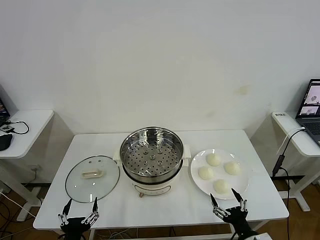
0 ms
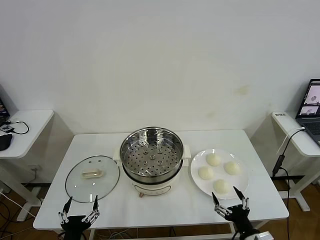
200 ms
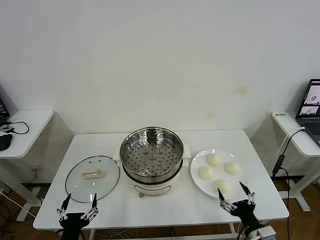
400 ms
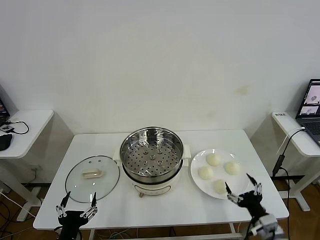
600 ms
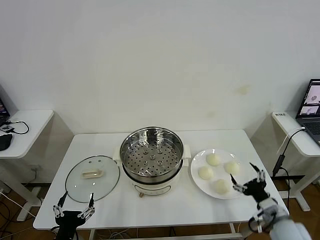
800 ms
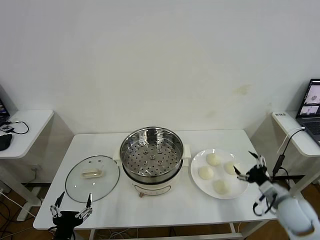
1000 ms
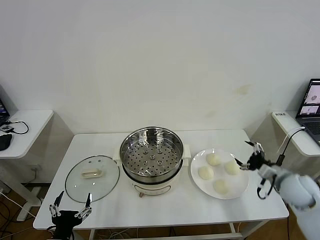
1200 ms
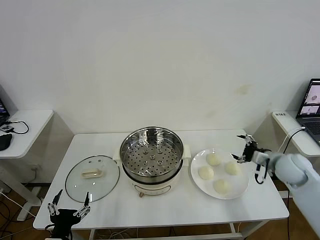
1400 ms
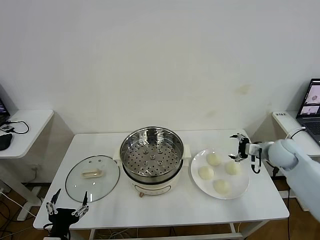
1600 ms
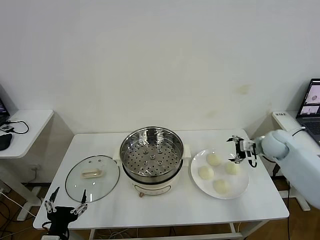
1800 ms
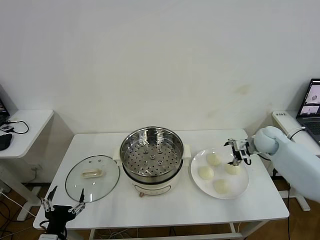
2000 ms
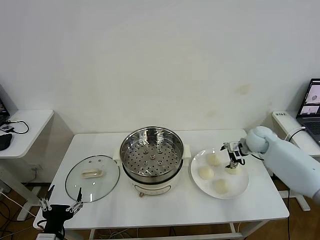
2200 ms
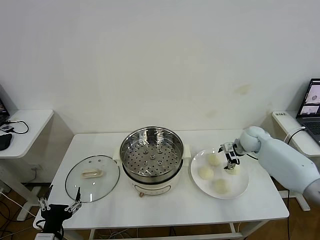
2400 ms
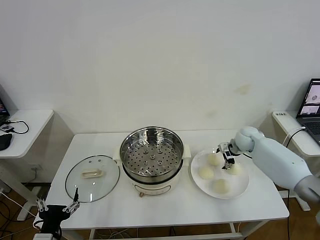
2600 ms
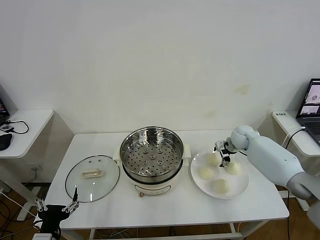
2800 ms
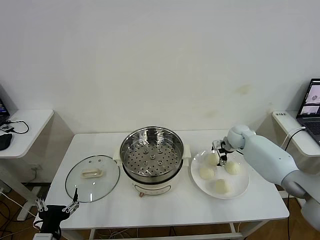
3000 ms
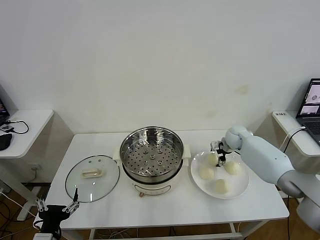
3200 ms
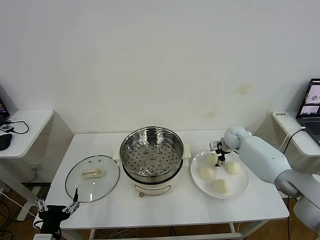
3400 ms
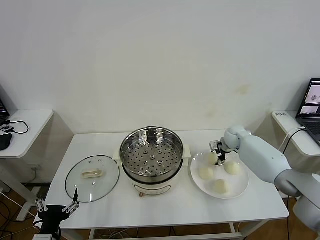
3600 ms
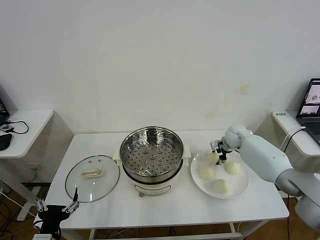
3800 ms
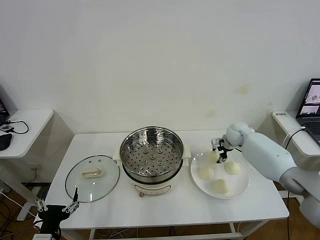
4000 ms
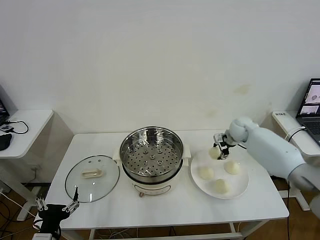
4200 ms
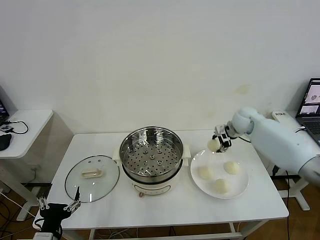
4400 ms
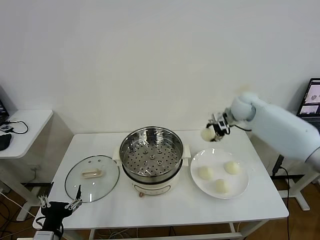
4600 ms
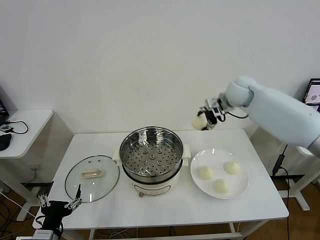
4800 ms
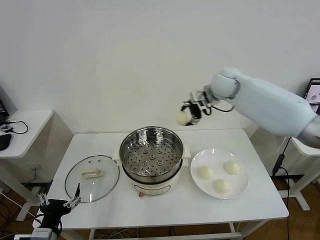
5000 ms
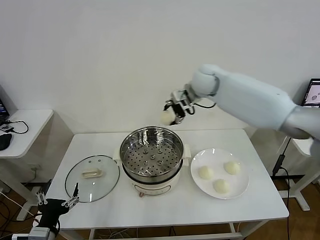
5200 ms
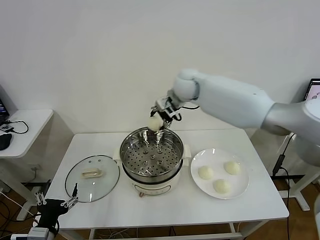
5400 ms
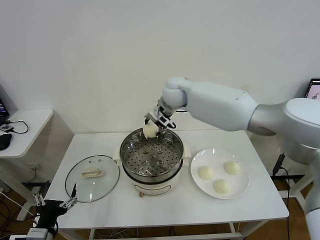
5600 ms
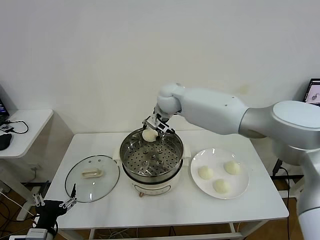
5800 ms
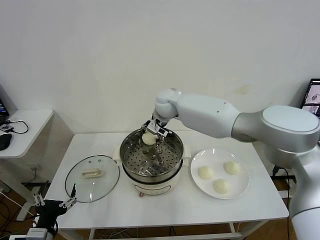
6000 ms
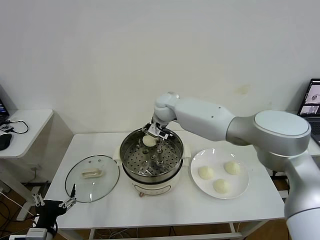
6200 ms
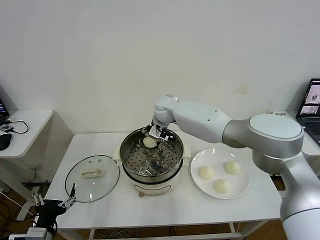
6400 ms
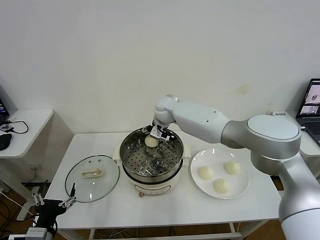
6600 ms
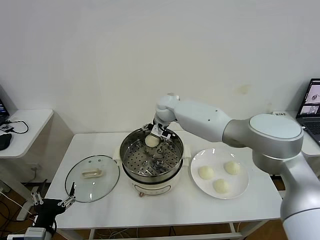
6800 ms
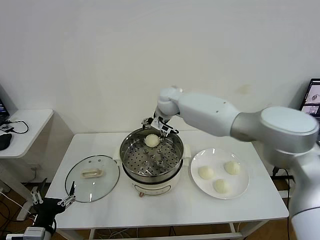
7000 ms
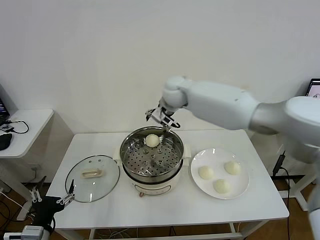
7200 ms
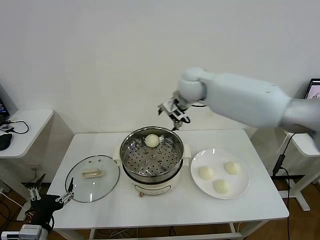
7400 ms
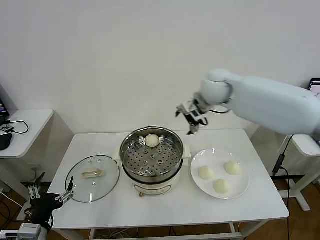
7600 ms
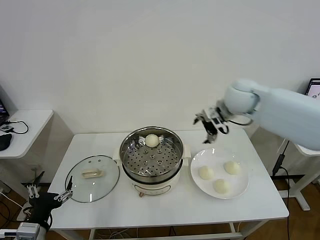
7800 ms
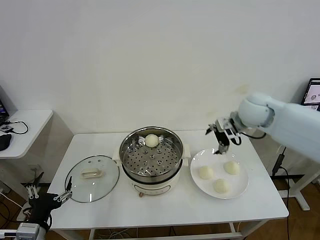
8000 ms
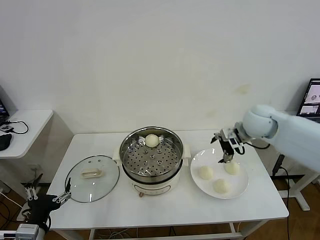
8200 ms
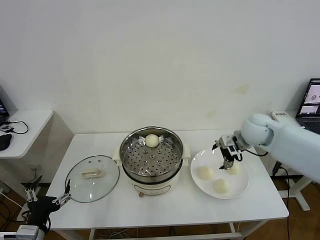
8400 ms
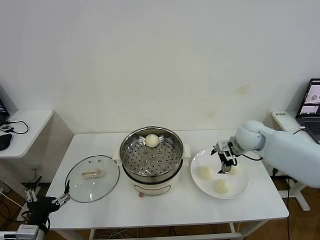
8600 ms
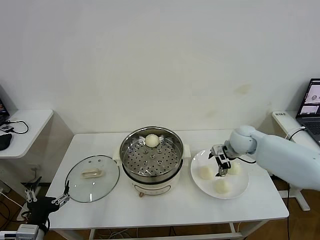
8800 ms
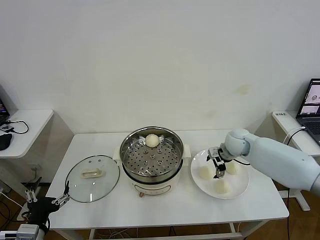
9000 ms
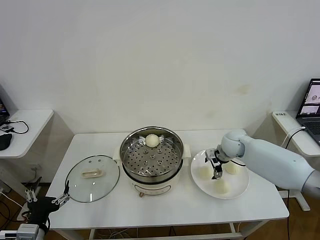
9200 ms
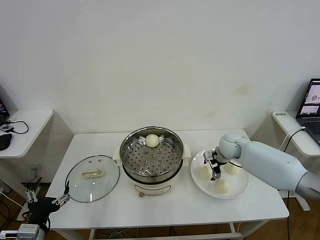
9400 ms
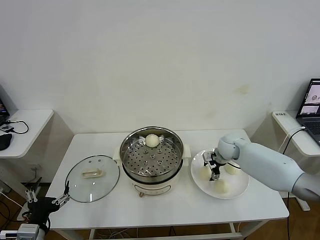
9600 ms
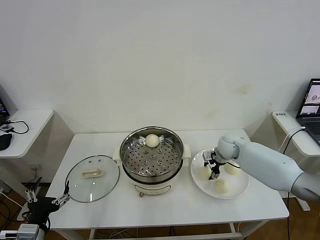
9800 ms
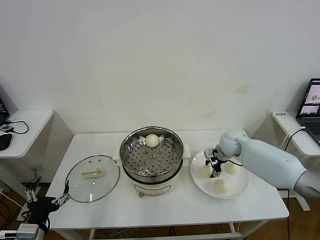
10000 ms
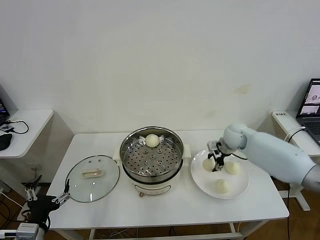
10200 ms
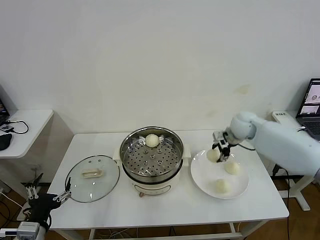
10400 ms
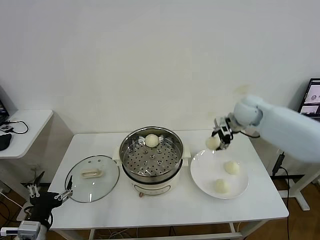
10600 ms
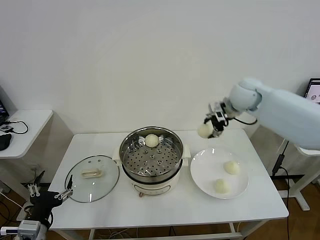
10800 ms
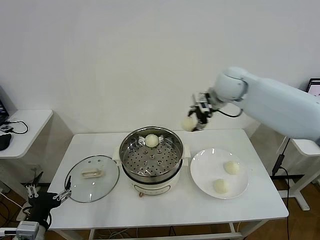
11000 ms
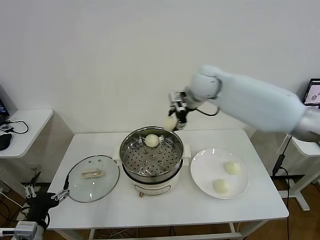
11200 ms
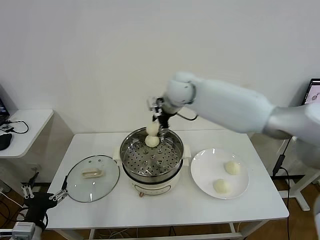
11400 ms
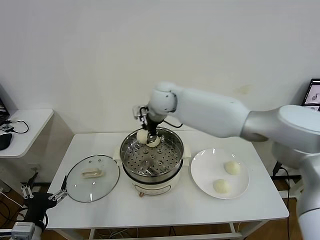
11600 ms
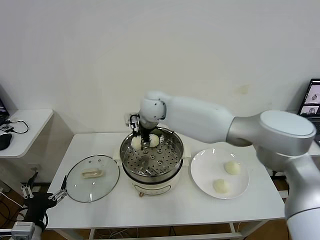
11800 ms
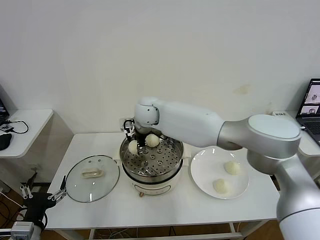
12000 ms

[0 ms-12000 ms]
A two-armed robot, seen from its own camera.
Task of the whole recording: take steamed baozi put them in steamer then cover it.
Step, 0 ms to 3800 ms: Grasp the baozi in the plate with right gripper.
Step, 4000 ms to 6800 ms: Place the baozi on the steamer with right gripper.
Step, 7000 ms to 10000 ms: Grasp the baozi in the plate with right gripper.
1600 ms to 3000 ms: The right gripper moves forward, to the left and downward, roughly 15 cm.
3000 ms to 4400 ms: The right gripper heads upward, covering approximately 15 cm, and closes.
4400 ms to 6000 ms: The right gripper shifts about 30 cm to the left.
6000 ms to 7600 ms: The right gripper travels to the right and upward by approximately 20 cm, and opens its fingers.
7600 ms to 9000 ms: The right gripper travels downward by some 20 cm.
9000 ms to 10400 ms: The right gripper is displaced upward by about 10 cm, and closes.
10400 ms to 12000 ms: The right gripper is displaced to the left by approximately 35 cm.

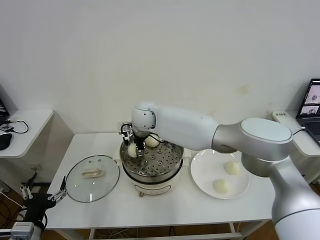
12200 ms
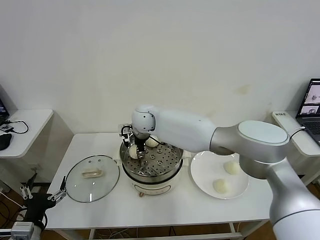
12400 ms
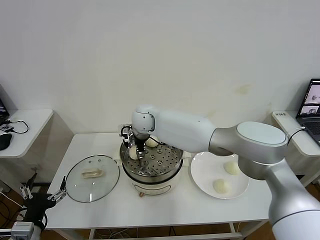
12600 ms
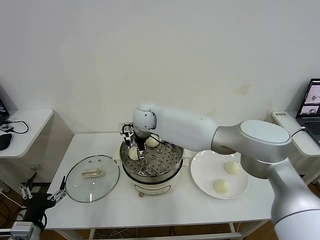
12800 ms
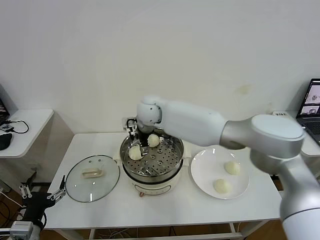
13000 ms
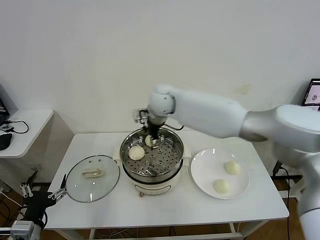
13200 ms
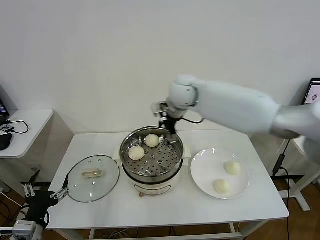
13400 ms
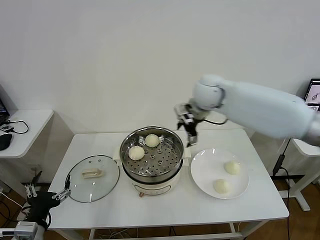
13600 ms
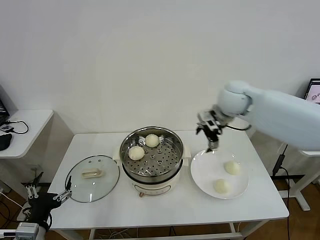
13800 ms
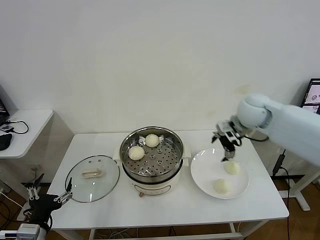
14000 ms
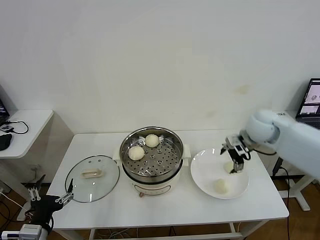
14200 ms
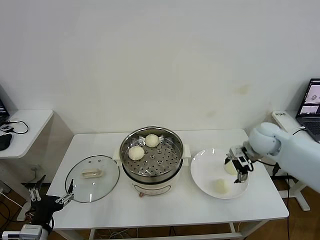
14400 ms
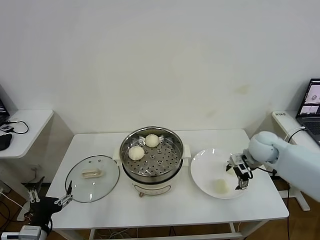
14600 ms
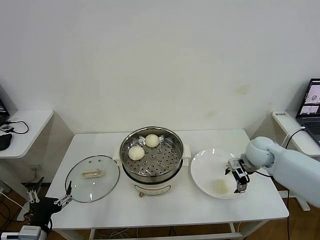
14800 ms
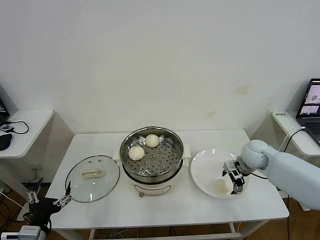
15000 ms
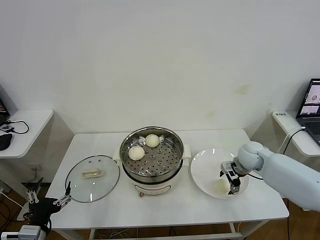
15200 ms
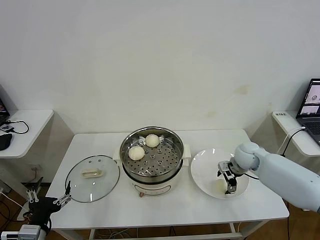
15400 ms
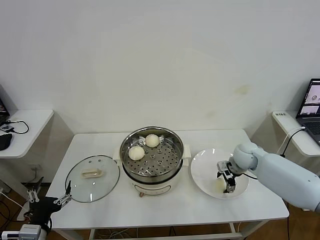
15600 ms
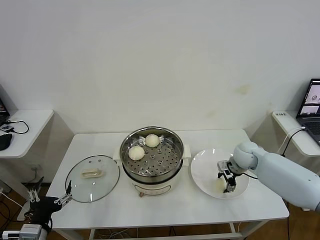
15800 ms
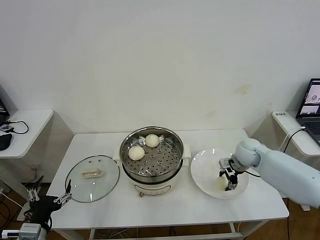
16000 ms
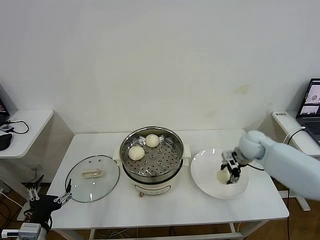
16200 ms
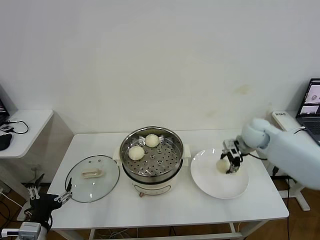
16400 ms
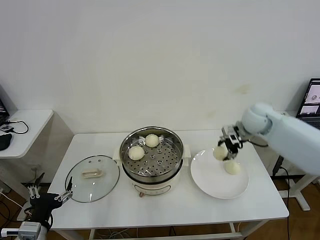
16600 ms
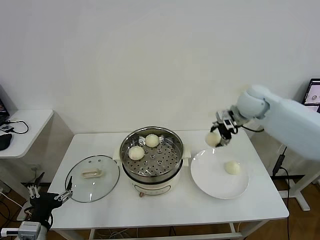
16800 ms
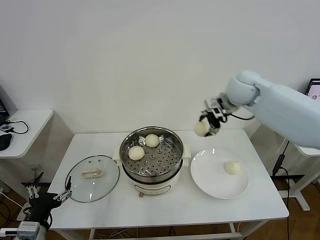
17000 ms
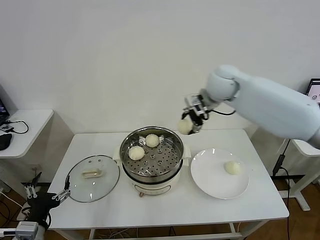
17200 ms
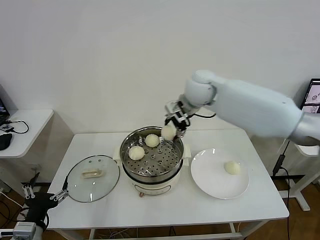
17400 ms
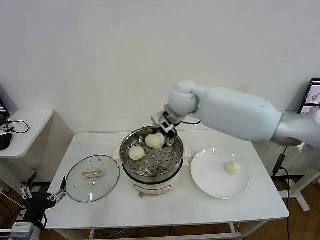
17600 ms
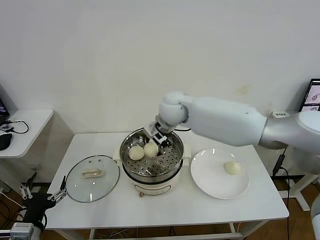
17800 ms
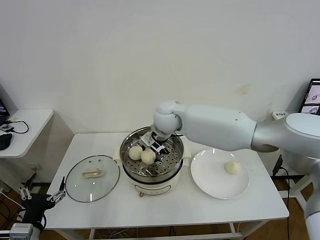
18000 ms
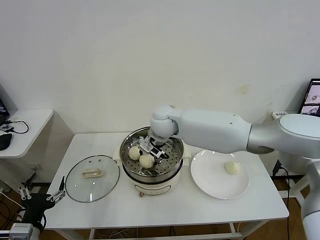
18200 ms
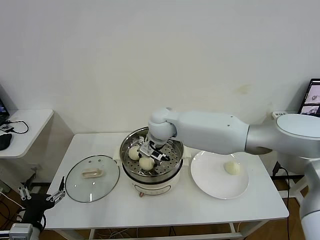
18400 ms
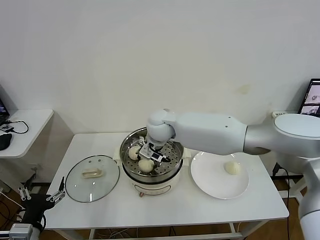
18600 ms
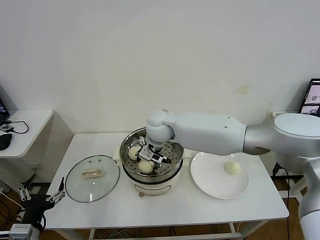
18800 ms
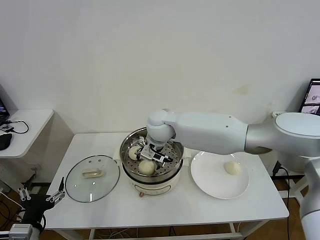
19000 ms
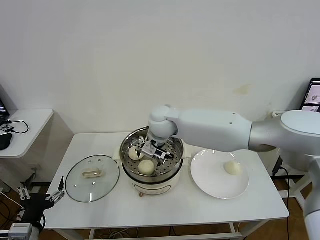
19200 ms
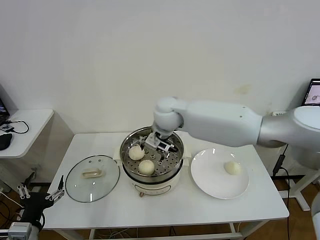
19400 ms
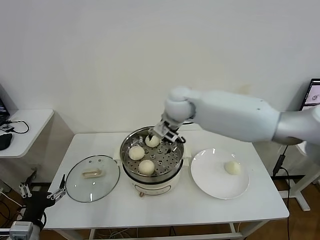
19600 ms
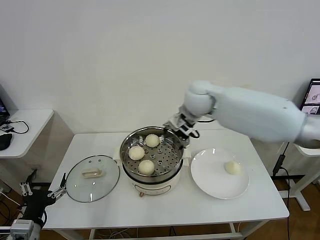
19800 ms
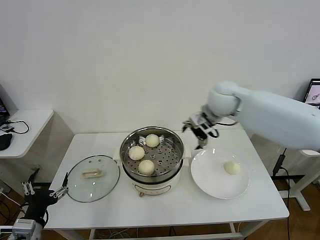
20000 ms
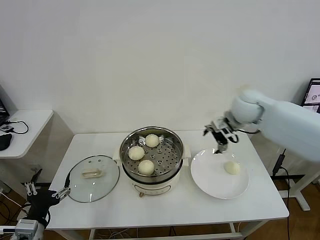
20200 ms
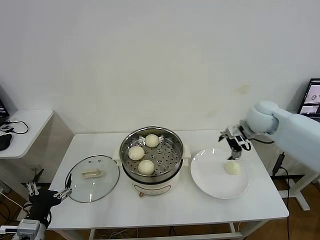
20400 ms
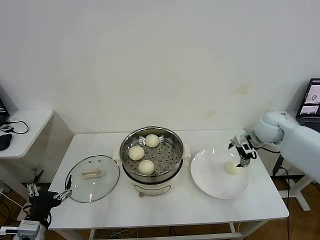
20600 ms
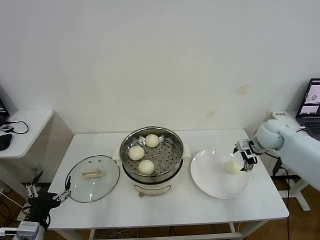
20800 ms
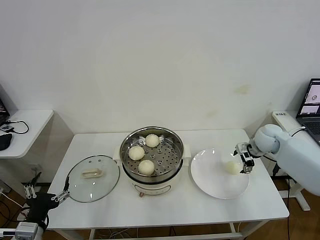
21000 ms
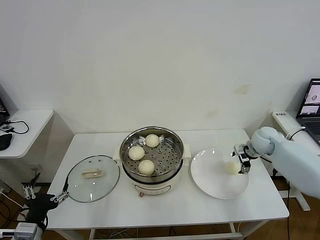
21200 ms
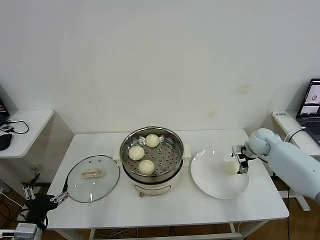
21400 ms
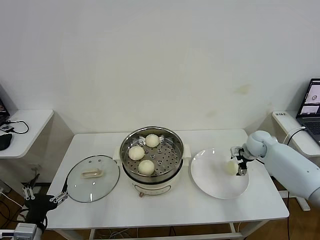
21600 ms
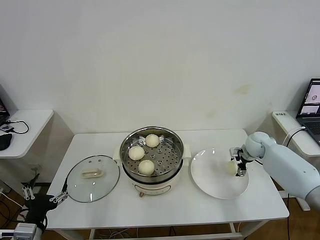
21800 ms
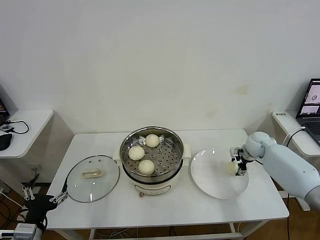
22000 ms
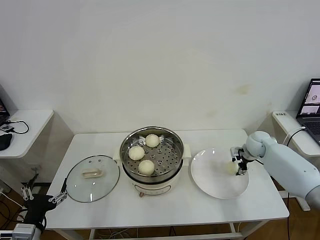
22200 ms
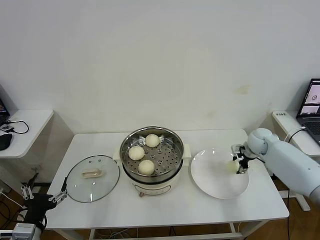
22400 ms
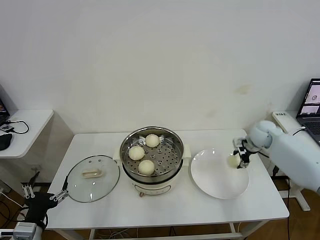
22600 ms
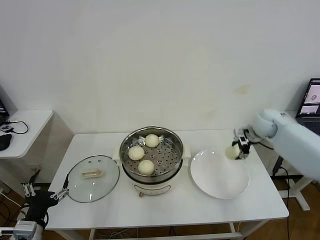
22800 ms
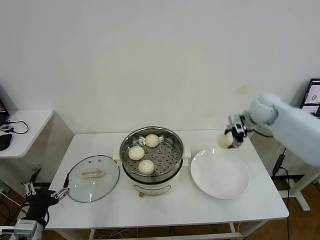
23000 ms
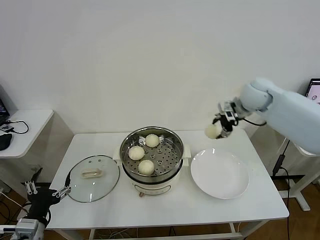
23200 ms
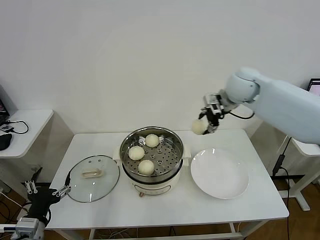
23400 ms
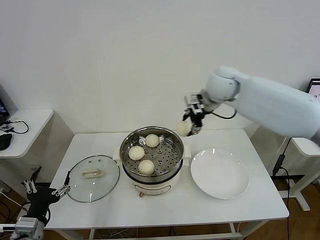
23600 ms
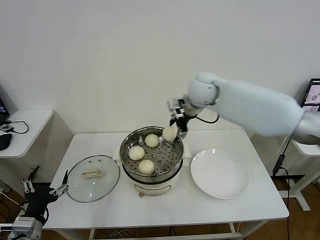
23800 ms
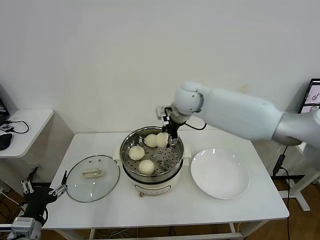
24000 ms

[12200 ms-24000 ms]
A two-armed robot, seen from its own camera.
Task of the whole recording: take steamed baozi put them in steamer then cover it.
Step, 13200 ms to 16000 ms: Grasp the baozi in the plate with right gripper.
Step, 16200 ms to 19200 ms: Place the baozi on the steamer with right gripper.
Step, 19400 ms to 22200 ms: Grasp the baozi in the plate with right gripper.
12200 ms to 13600 ms: The right gripper moves to the right and upward, approximately 25 cm, and opens up.
13600 ms to 15200 ms: The right gripper shifts roughly 30 cm downward and to the right.
15200 ms to 16600 ms: The right gripper is displaced upward by approximately 15 cm, and closes its fingers.
16600 ms to 18200 ms: The right gripper travels to the left by about 30 cm.
18200 ms to 19600 ms: The right gripper travels upward and to the right by roughly 10 cm, and opens its fingers.
19600 ms to 21000 ms: The right gripper travels to the right and downward by approximately 35 cm.
21000 ms to 22600 ms: The right gripper closes its fingers.
22600 ms to 24000 ms: The right gripper heads to the left and upward, covering roughly 35 cm.
